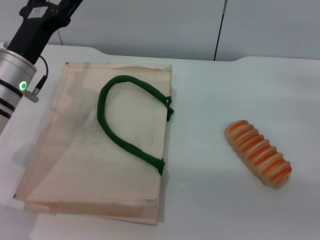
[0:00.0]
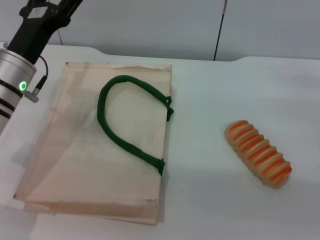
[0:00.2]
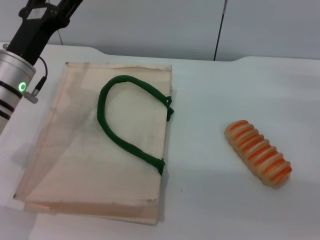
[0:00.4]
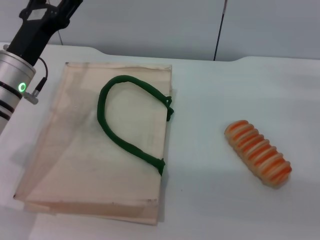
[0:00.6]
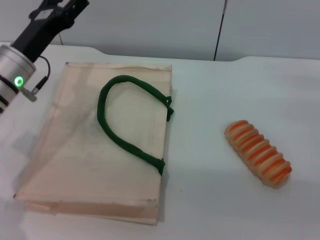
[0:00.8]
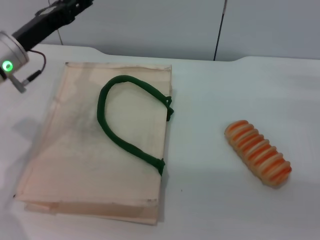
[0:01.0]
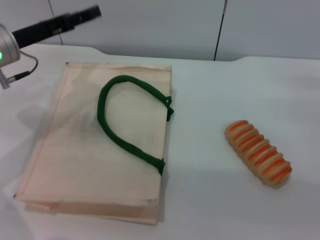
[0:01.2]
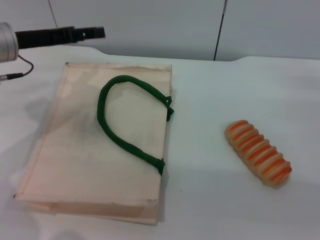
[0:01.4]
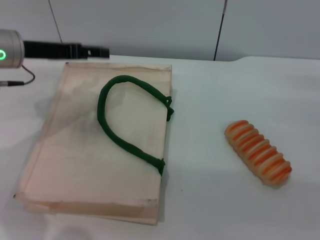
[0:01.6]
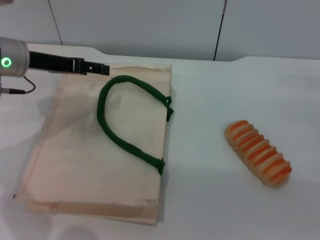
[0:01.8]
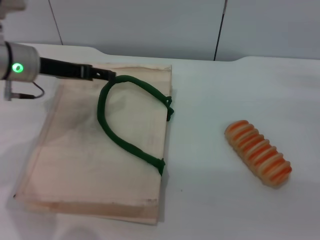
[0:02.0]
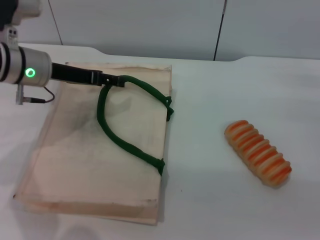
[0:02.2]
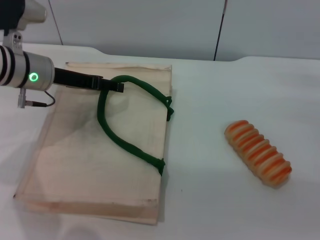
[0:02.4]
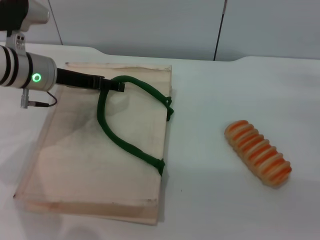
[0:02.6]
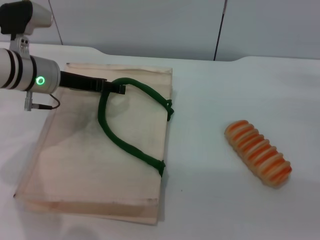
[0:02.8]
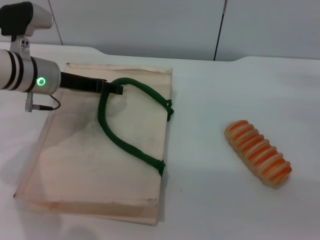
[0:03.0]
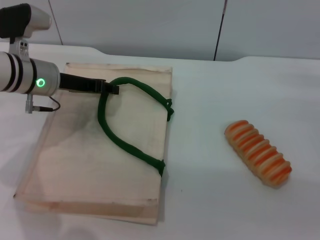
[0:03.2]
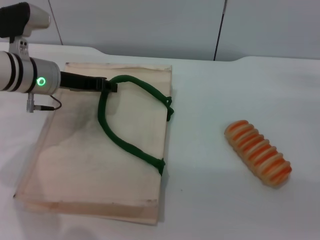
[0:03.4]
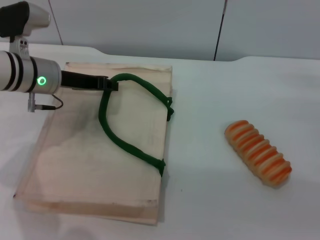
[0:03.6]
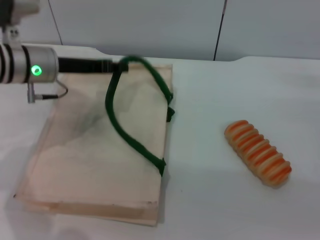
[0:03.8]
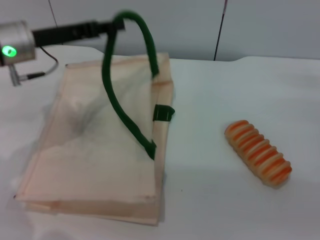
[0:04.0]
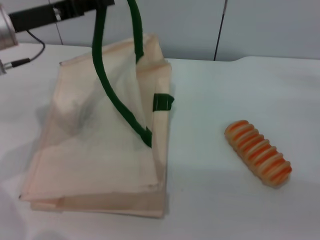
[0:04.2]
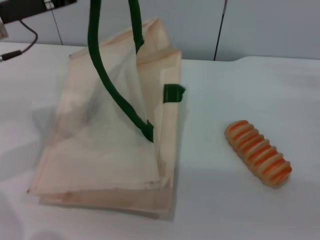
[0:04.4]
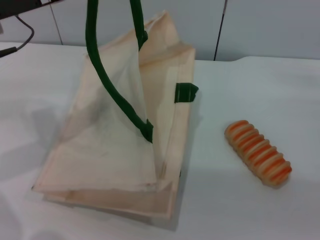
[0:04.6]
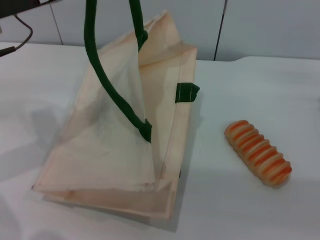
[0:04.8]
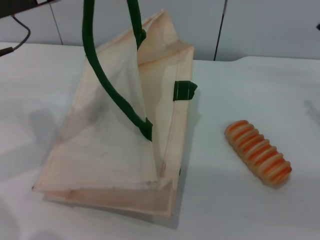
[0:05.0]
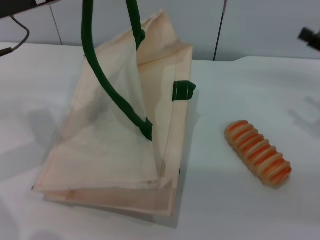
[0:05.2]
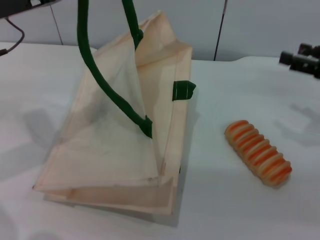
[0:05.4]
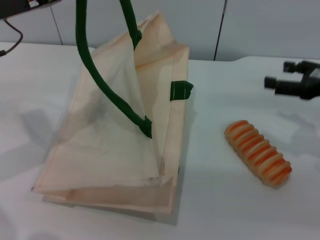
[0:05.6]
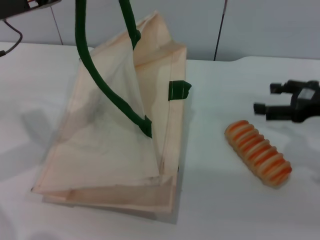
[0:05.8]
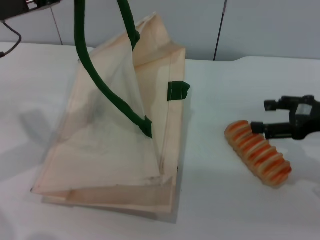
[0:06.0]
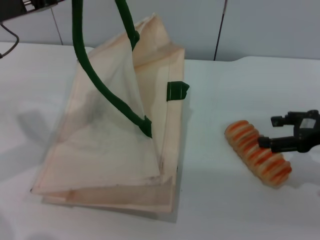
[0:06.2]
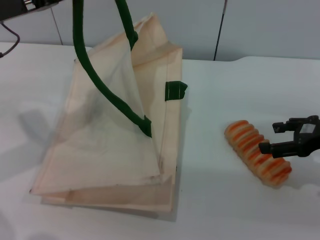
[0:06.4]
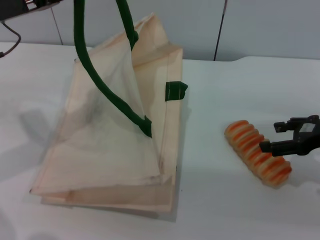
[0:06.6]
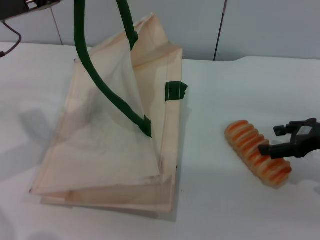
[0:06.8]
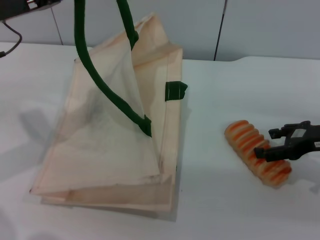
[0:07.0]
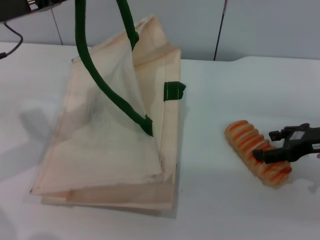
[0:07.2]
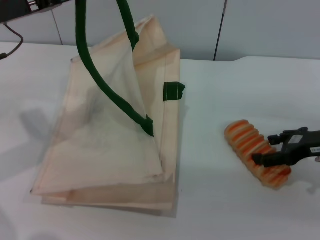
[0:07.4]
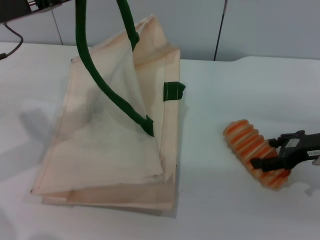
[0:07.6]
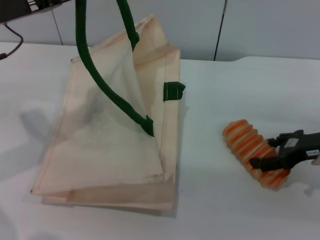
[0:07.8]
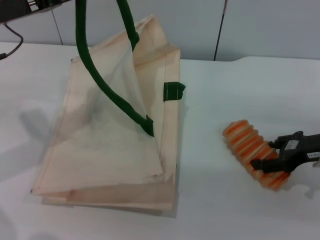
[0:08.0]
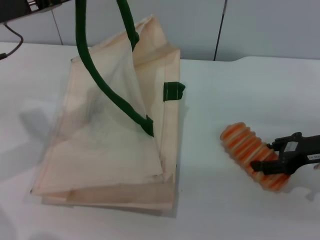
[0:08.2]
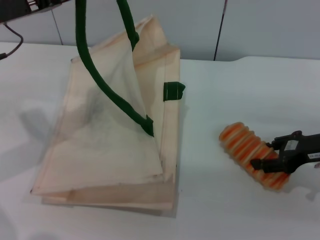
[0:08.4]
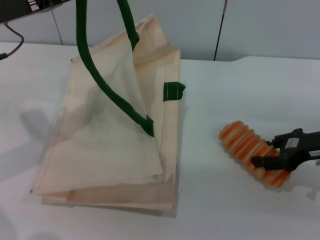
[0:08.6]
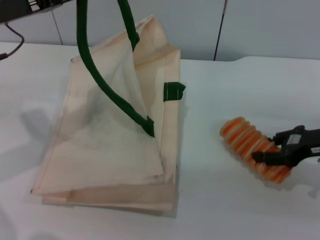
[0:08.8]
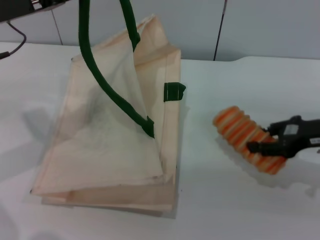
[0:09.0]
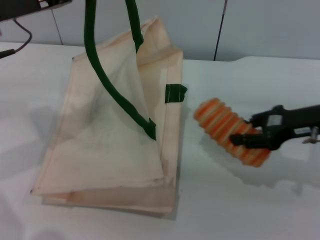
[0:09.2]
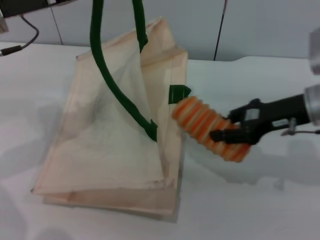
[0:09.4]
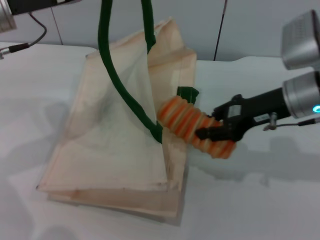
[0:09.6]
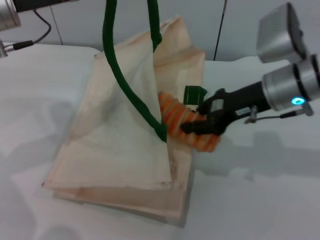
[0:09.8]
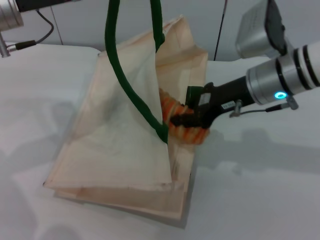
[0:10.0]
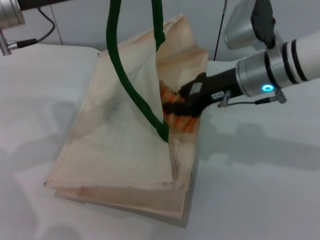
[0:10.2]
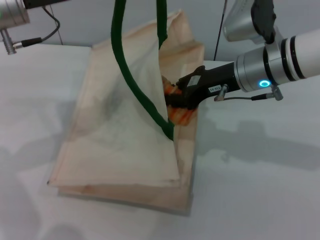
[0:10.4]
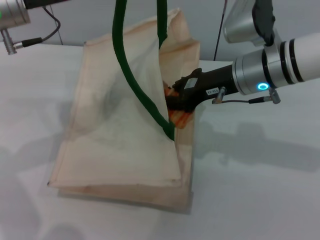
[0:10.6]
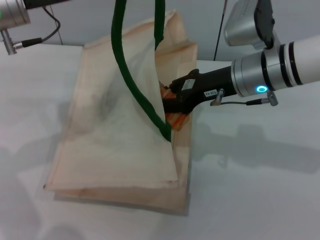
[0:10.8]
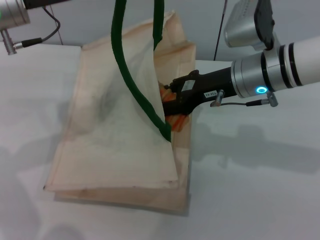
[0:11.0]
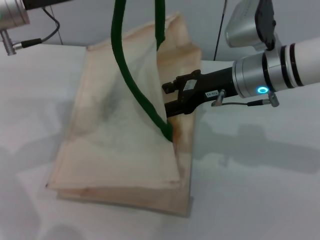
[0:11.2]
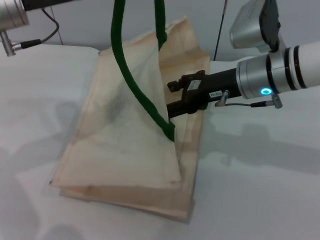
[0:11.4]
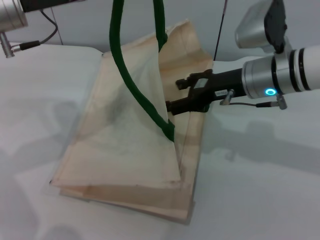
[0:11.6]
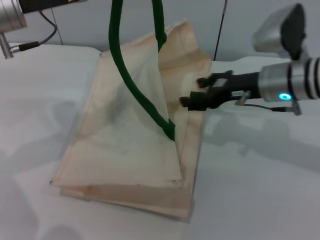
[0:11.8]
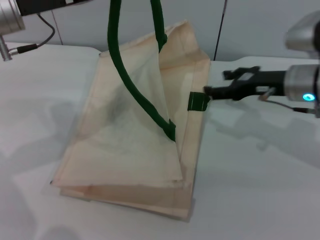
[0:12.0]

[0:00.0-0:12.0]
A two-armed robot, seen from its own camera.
Task of the whole recording: pick up the bread from the table and place it in the white handbag.
Step, 0:00.0 to 0:04.6: Lift the woven bag with the left gripper to open it.
Step, 0:04.8 to 0:09.0: Pick up the bread with the right gripper.
0:00.0 to 0:01.6: The left gripper moves upward, about 5 cm.
0:01.6 to 0:03.0: The left gripper shifts by about 5 cm.
0:03.0 to 0:04.4: The left gripper is displaced upward by roughly 10 cm, and closes.
0:04.4 to 0:06.0: The right gripper moves upward, roughly 5 cm.
0:06.0 to 0:07.6: The grippers make only small movements.
0:07.6 to 0:09.0: The right gripper closes up.
0:09.0 to 0:10.4: The right gripper goes roughly 15 cm to the left and forward, and closes up; the left gripper changes place by approximately 5 cm.
0:10.4 to 0:12.0: The right gripper goes roughly 10 cm to the right, and opens its fingers.

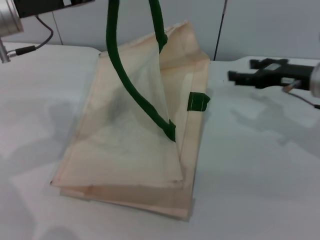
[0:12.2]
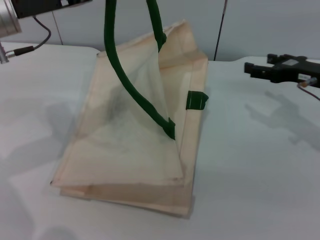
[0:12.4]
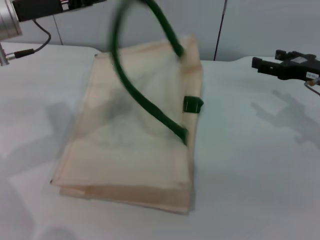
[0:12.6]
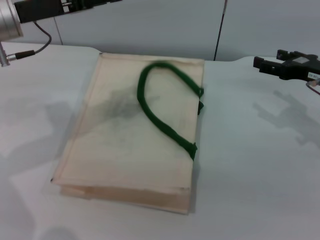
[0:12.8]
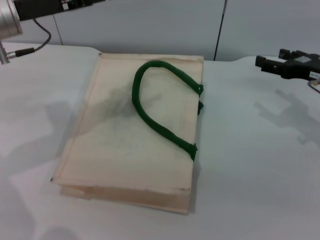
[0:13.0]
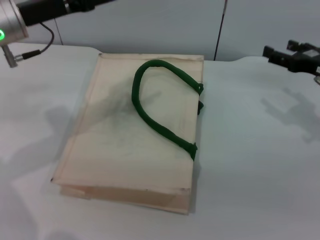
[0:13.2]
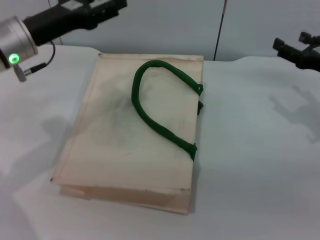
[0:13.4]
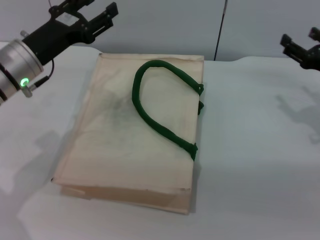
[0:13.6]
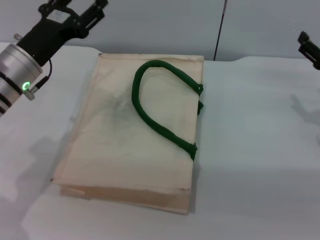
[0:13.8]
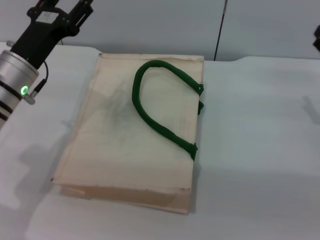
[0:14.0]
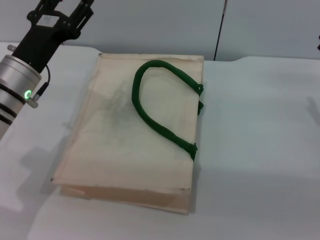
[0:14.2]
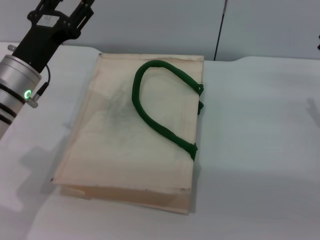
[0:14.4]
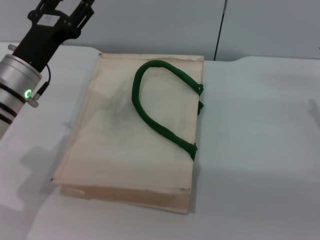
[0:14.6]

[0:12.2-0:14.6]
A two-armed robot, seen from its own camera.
Task of the whole recording: pick up the bread from the table and place it in the white handbag.
Step, 0:12.2 to 0:12.8: Lower the woven bag with the left gripper to close it.
0:12.2 to 0:13.4: The right gripper moves to the right, approximately 5 cm; the left gripper goes approximately 5 cm downward, and opens its fingers.
0:13.4 to 0:14.6: The right gripper changes place by approximately 5 cm, while the left gripper moves downward, approximately 5 cm.
